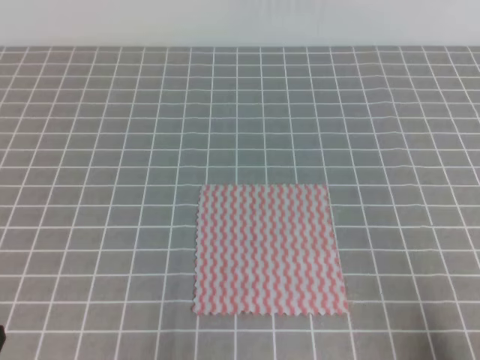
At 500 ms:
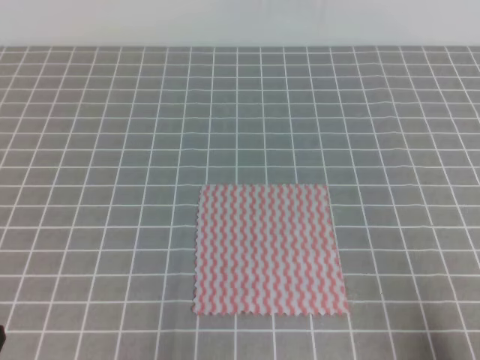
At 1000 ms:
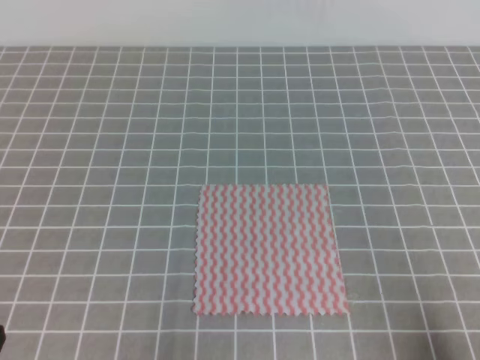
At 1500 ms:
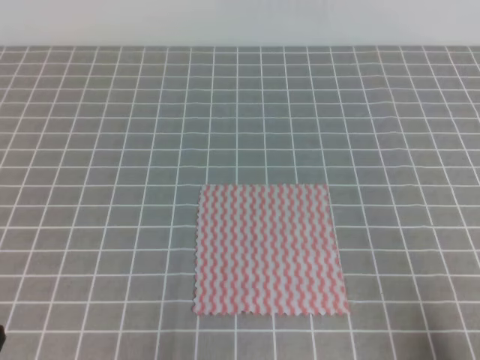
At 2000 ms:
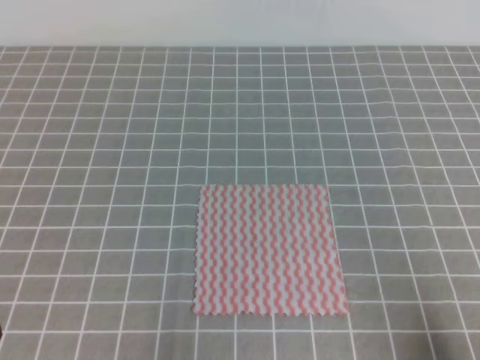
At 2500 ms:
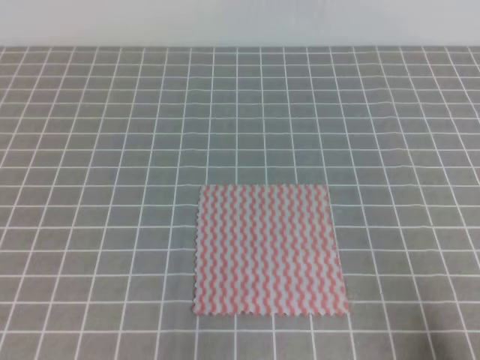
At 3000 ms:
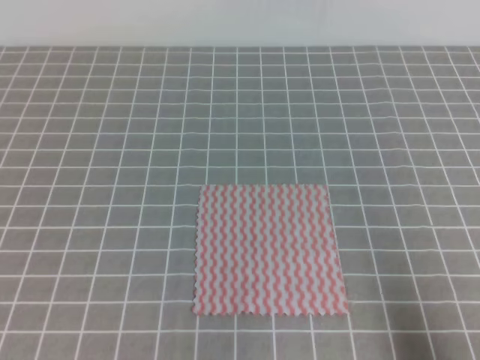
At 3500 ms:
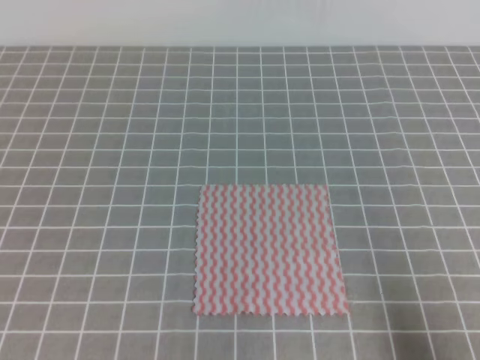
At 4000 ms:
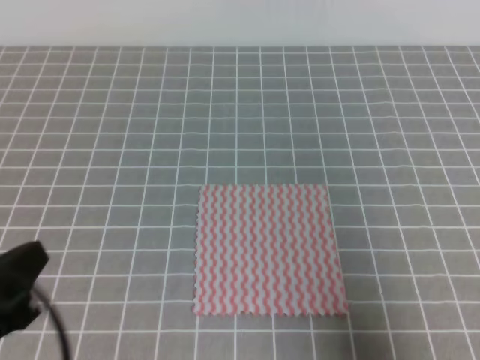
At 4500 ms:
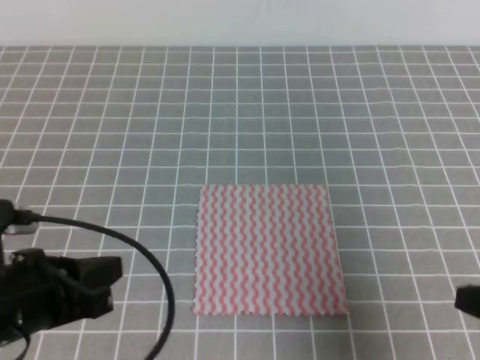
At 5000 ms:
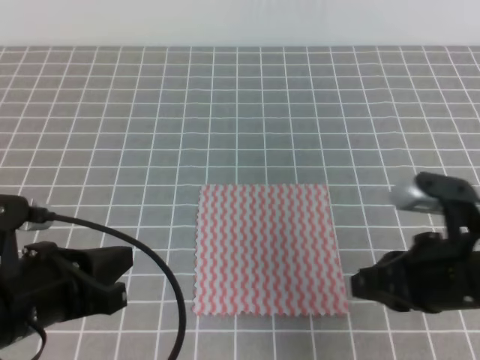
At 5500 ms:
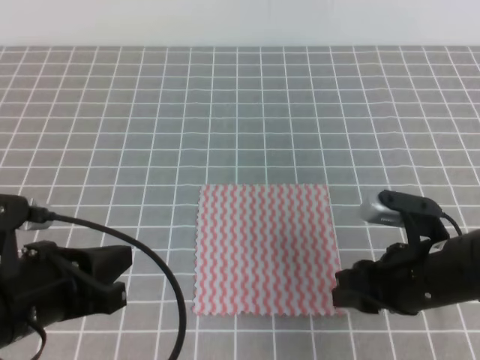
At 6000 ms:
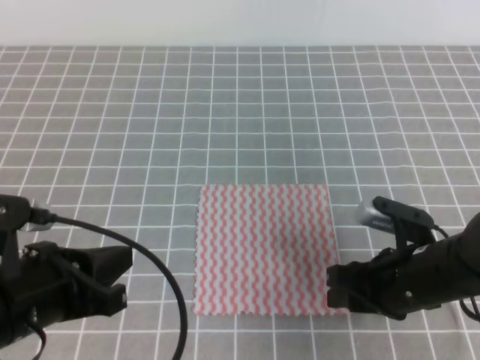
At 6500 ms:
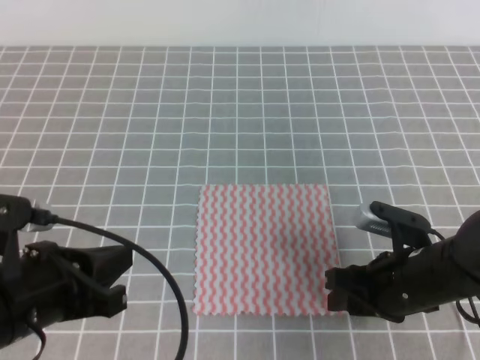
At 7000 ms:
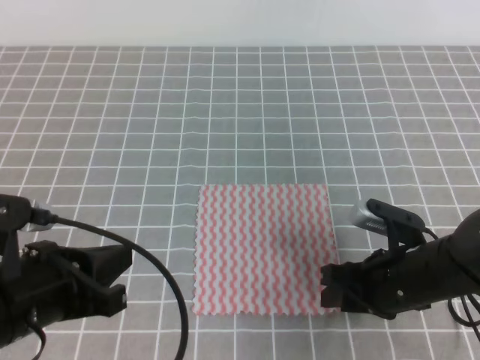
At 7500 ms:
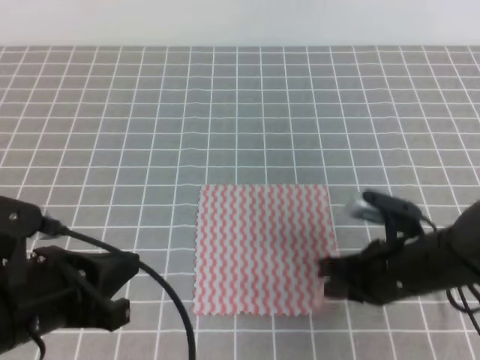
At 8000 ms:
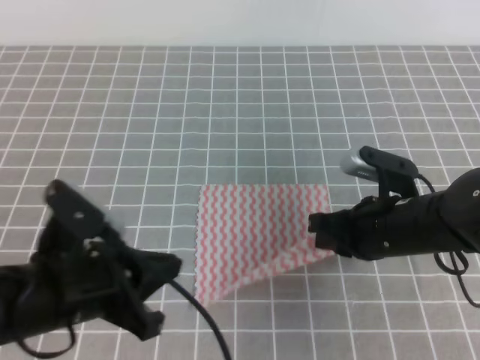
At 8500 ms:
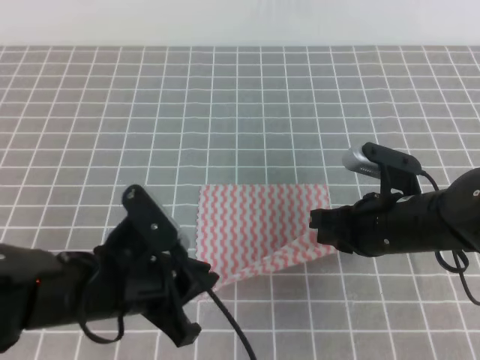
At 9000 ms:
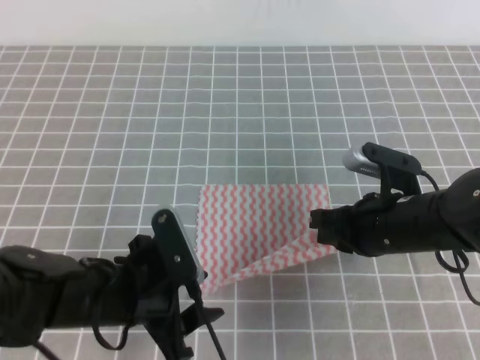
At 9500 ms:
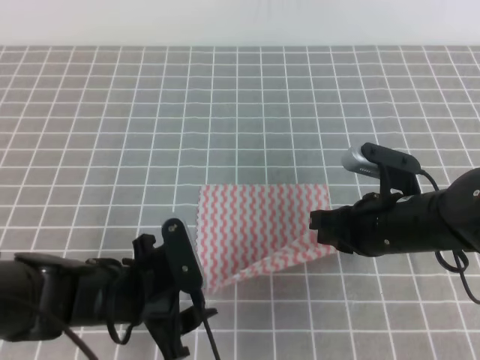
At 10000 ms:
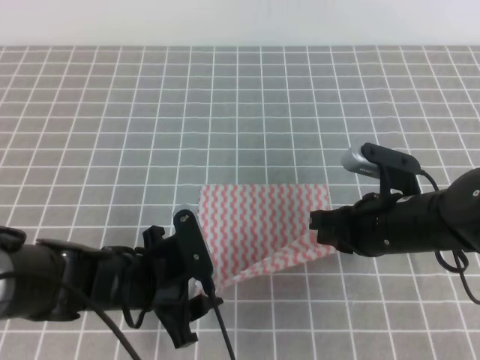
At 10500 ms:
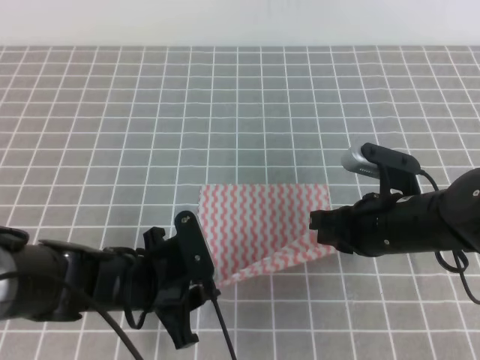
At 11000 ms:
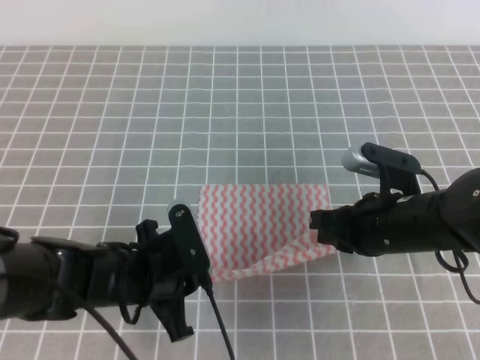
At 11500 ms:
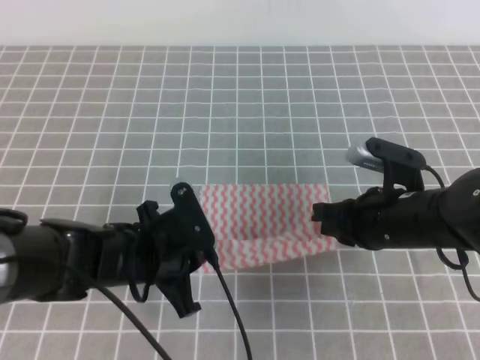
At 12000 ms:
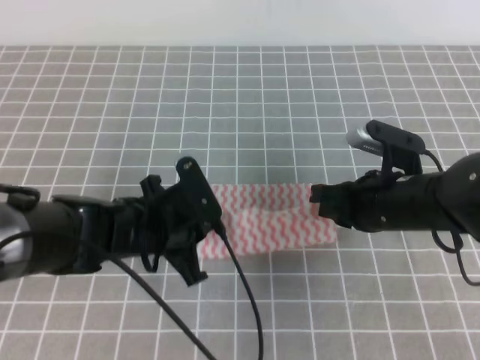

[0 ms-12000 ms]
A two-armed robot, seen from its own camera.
0 ms to 2000 ms: Both grippers stay about where they are.
2000 ms to 4000 ms: Both grippers travel together upward, roughly 5 cm.
4000 ms to 6000 ms: The left gripper shifts approximately 5 cm forward. Meanwhile the right gripper is displaced forward, to the left and downward by approximately 20 cm, and opens up.
6000 ms to 8000 ms: The right gripper closes its fingers.
8000 ms to 10000 ms: The left gripper is displaced downward and forward by about 10 cm, and opens up.
10000 ms to 12000 ms: The left gripper shifts by some 5 cm, and closes.

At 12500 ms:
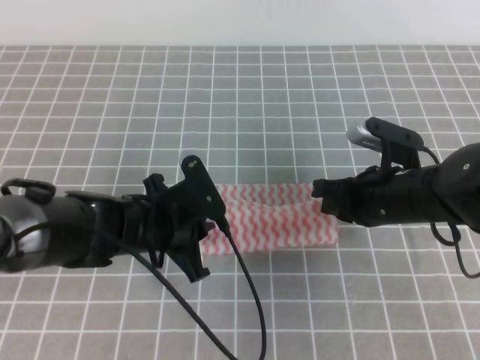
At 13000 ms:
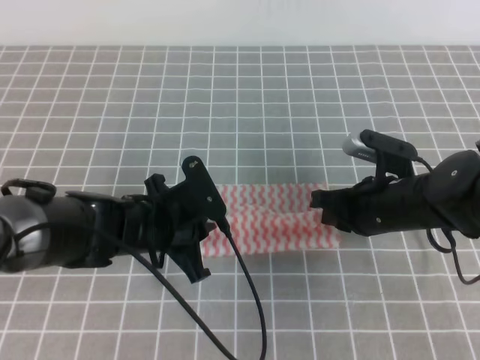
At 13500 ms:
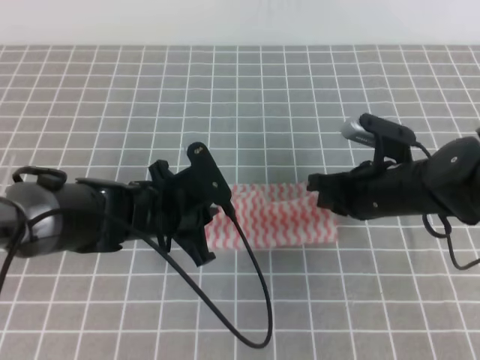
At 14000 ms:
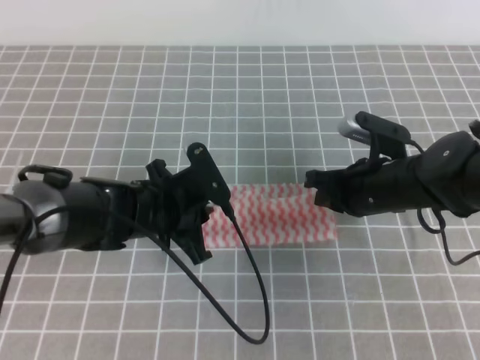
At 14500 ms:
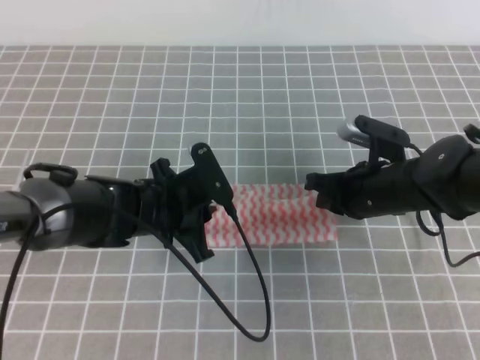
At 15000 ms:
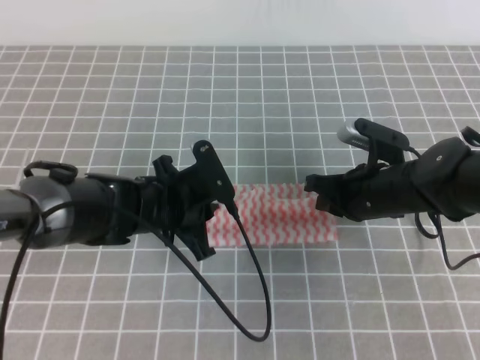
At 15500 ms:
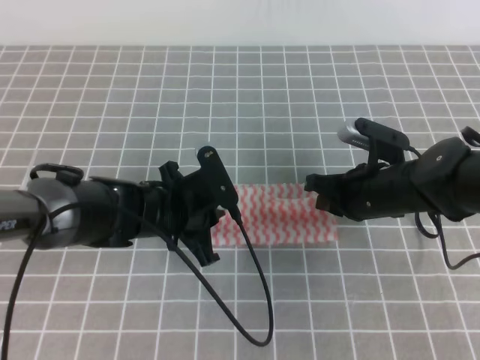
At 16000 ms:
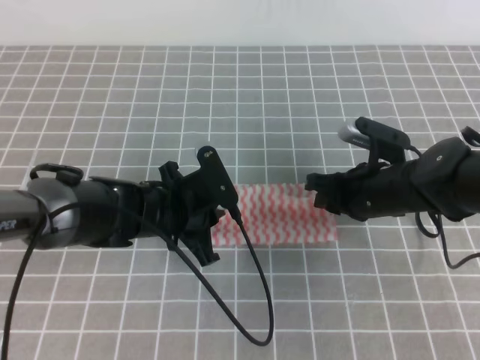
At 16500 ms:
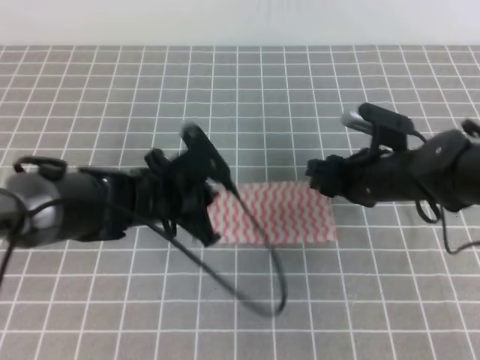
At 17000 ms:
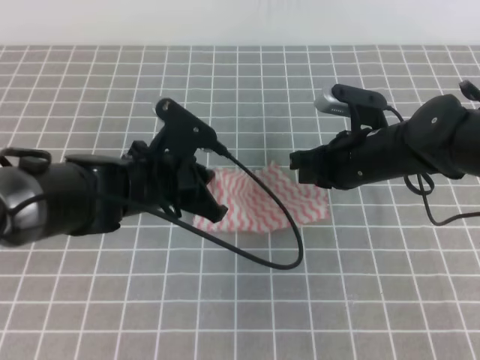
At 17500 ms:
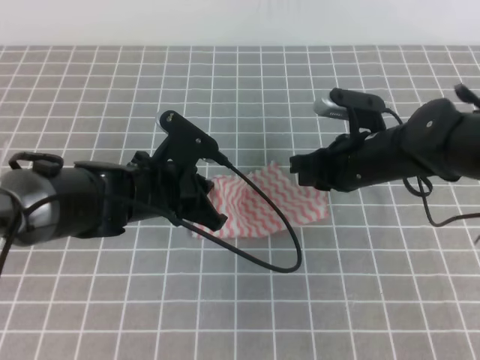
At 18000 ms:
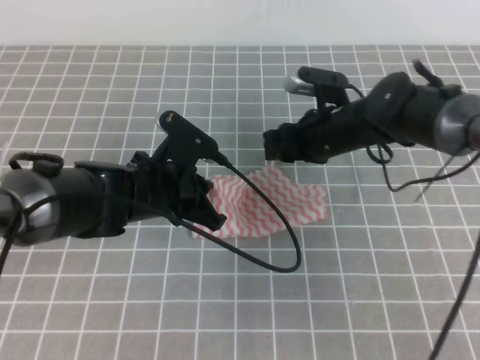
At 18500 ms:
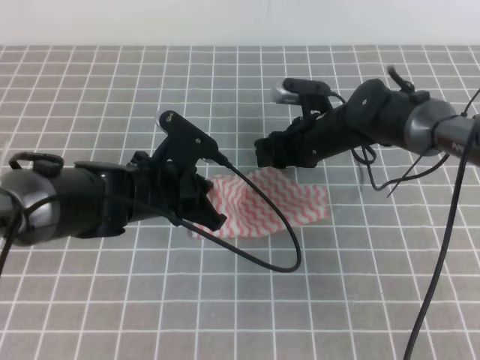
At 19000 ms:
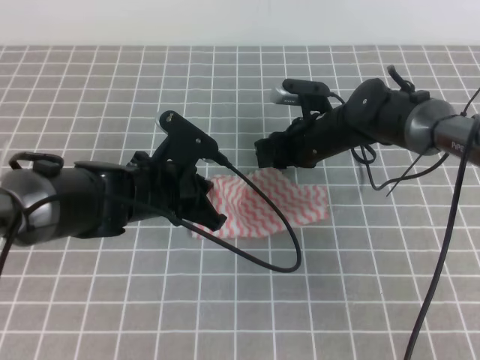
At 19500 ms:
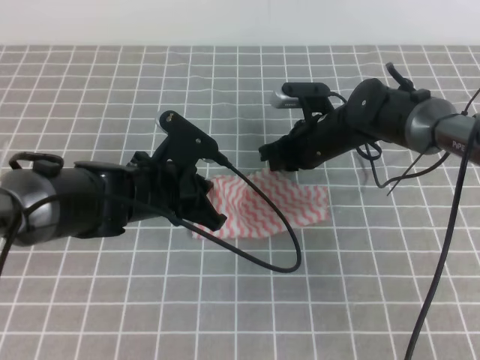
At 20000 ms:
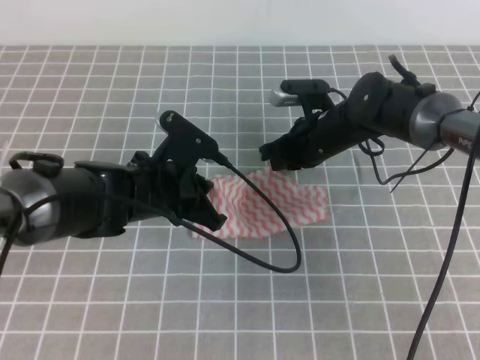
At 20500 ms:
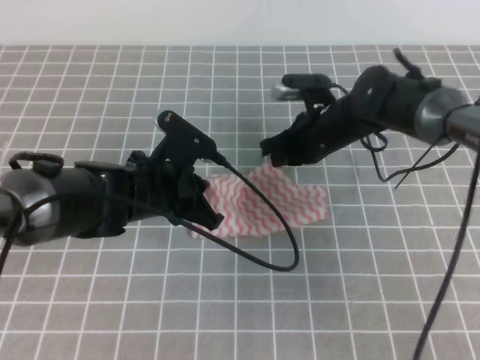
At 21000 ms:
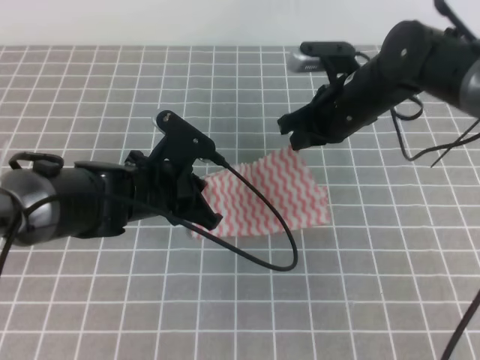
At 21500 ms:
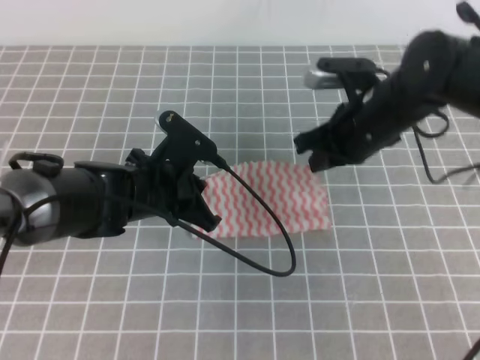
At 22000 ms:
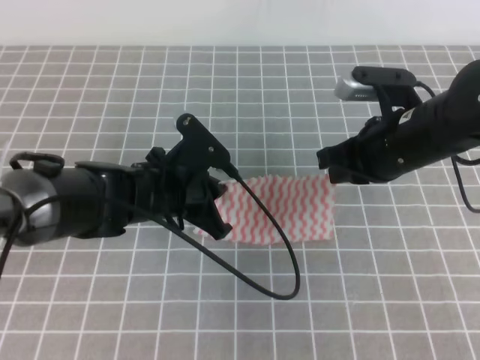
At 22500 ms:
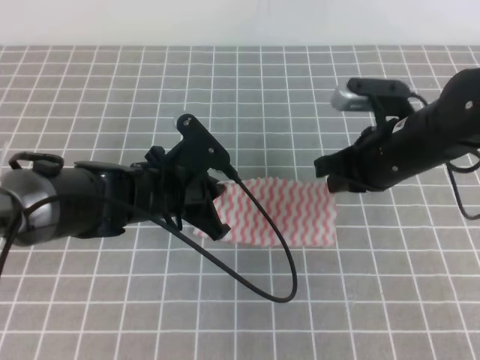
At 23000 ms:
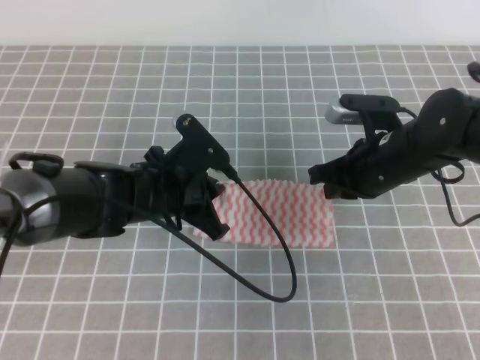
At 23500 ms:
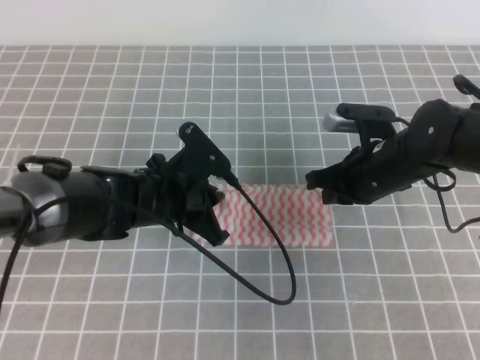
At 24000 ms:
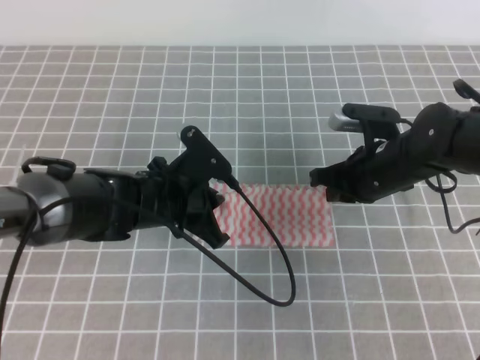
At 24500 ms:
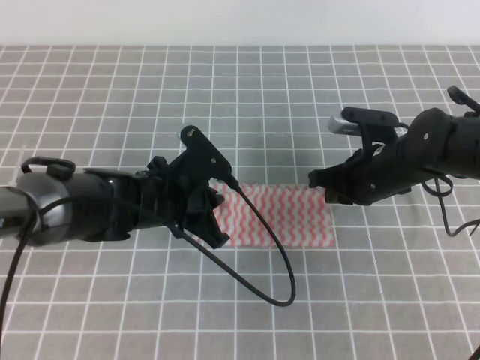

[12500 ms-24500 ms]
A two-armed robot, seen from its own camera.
12500 ms to 14500 ms: There are only small adjustments of the grippers.
14500 ms to 16500 ms: The right gripper opens its fingers.
16500 ms to 18500 ms: The right gripper travels forward and to the left by about 10 cm, and closes and opens again.
18500 ms to 20500 ms: The right gripper closes its fingers.
20500 ms to 22500 ms: The right gripper shifts roughly 15 cm backward, upward and to the right.
22500 ms to 24500 ms: The right gripper shifts roughly 10 cm downward.

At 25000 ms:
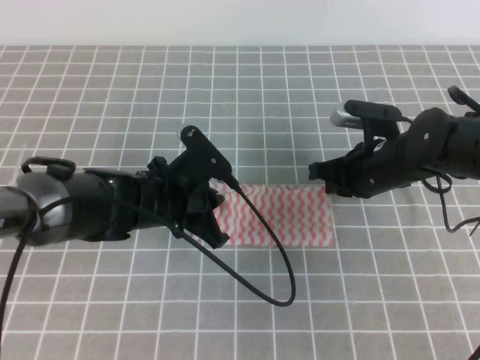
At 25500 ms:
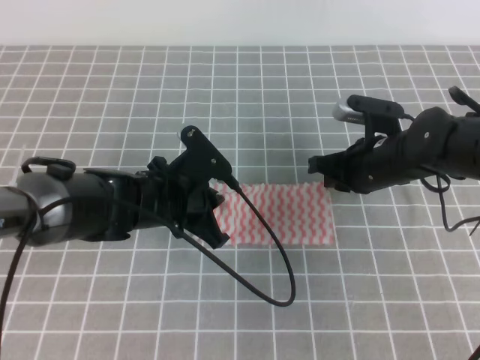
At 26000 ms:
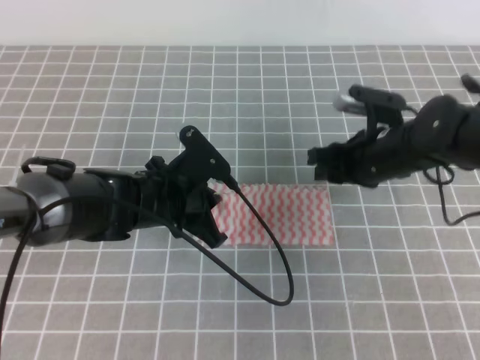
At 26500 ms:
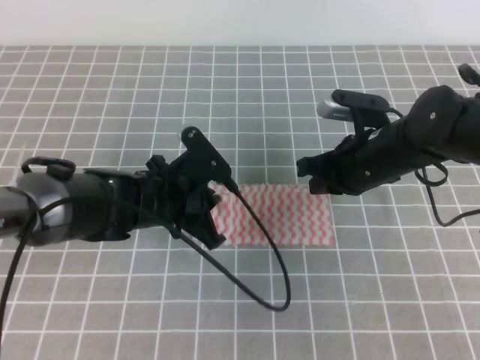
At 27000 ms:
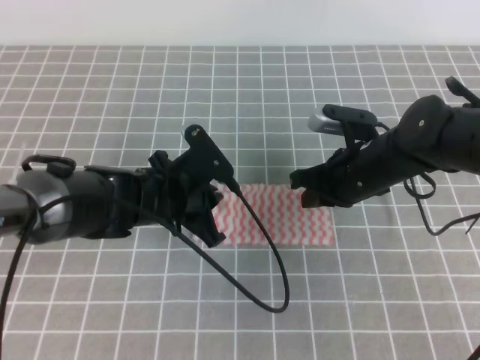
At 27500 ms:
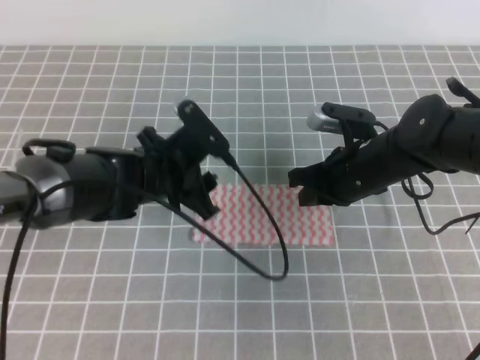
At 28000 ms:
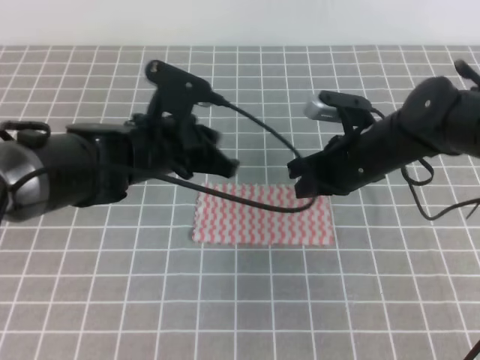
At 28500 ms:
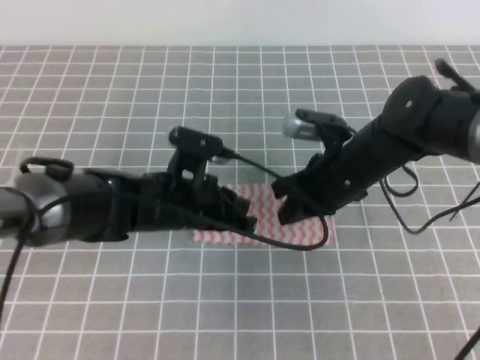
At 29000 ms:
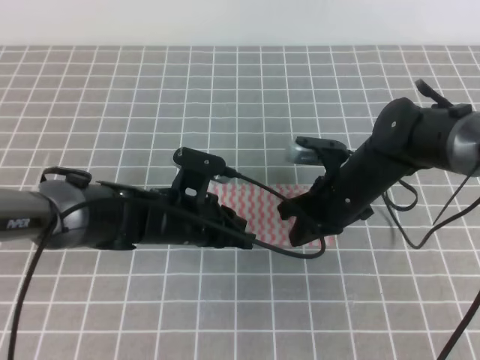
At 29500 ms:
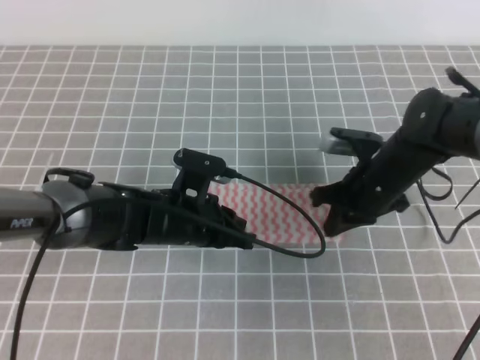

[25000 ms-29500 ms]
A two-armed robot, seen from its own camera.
25000 ms to 27000 ms: The right gripper opens and closes again.
27000 ms to 29500 ms: The left gripper opens and closes again.
